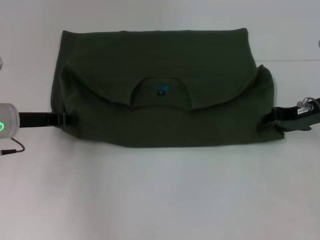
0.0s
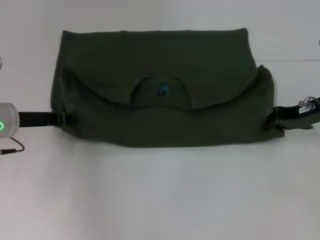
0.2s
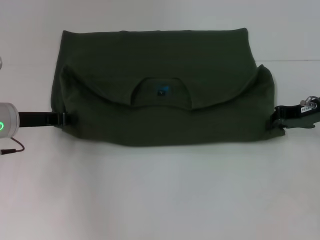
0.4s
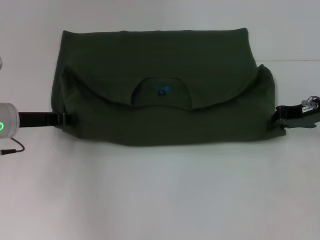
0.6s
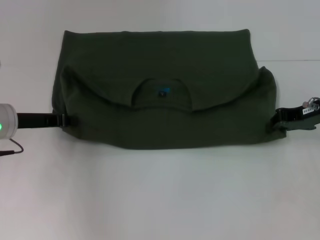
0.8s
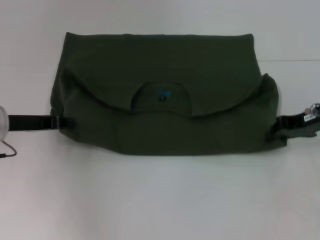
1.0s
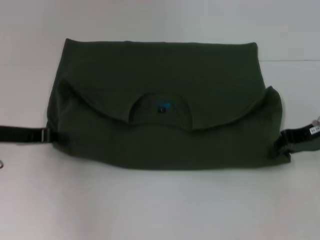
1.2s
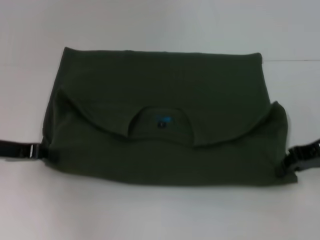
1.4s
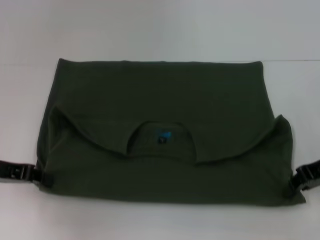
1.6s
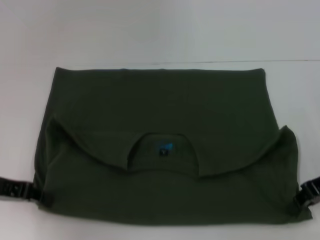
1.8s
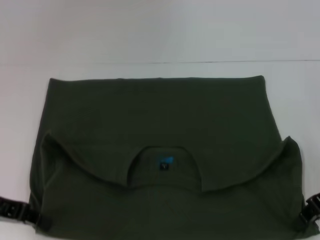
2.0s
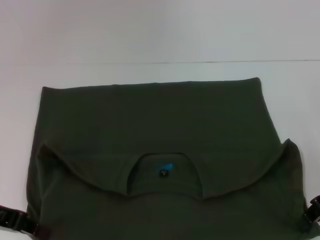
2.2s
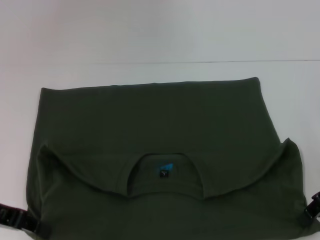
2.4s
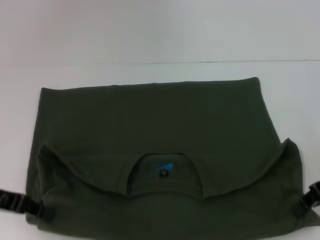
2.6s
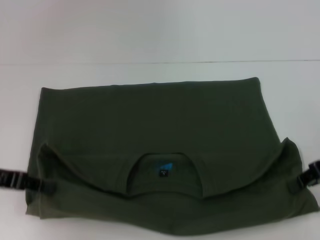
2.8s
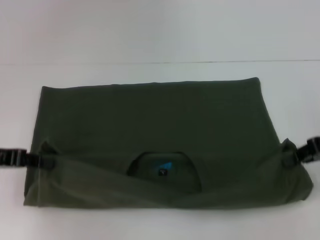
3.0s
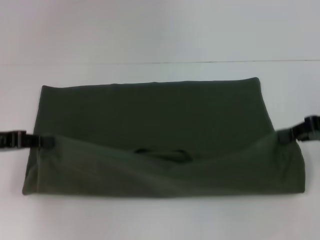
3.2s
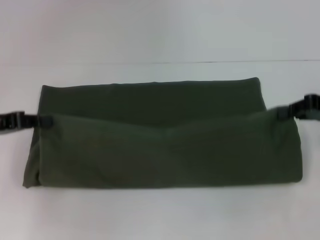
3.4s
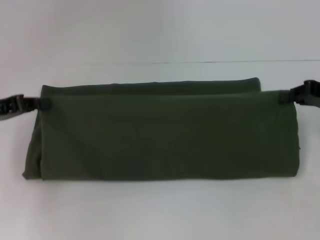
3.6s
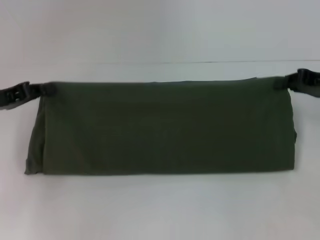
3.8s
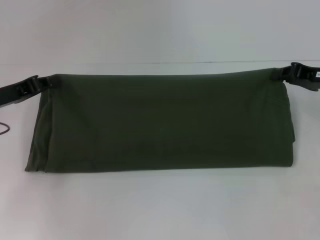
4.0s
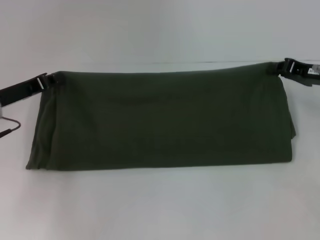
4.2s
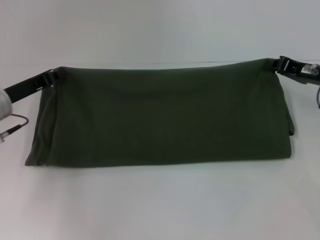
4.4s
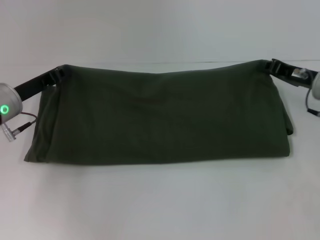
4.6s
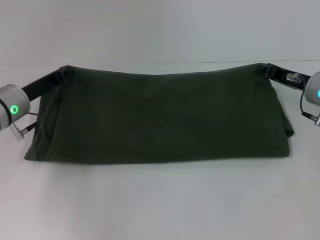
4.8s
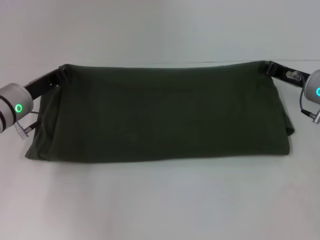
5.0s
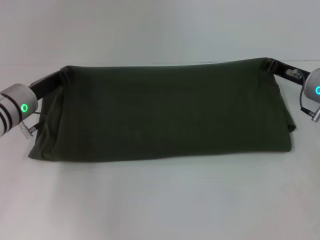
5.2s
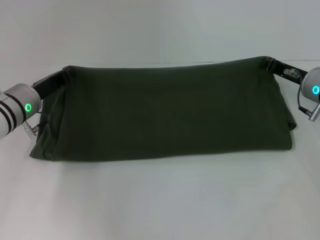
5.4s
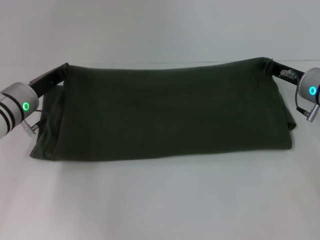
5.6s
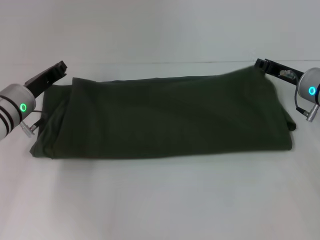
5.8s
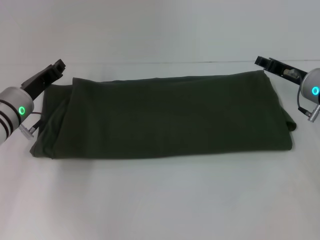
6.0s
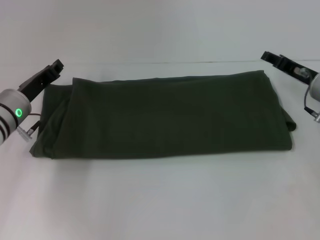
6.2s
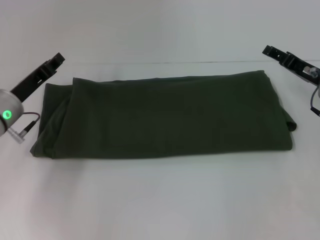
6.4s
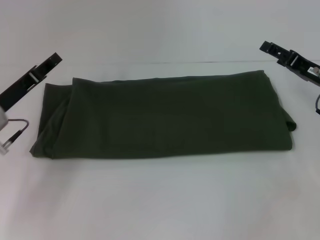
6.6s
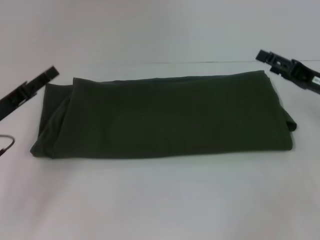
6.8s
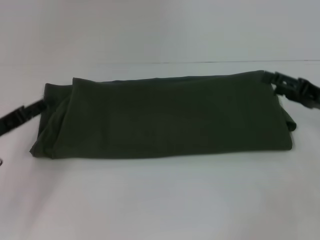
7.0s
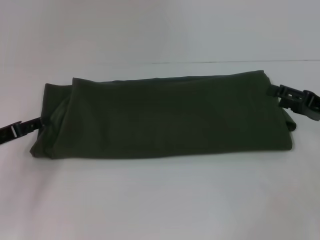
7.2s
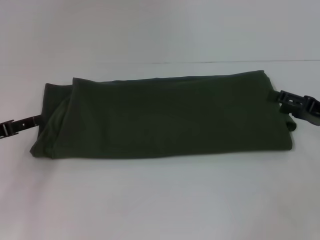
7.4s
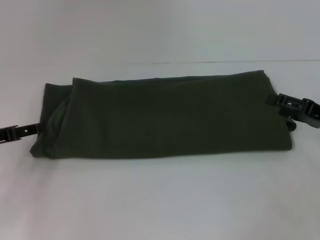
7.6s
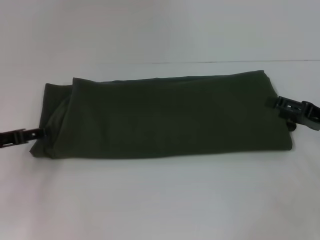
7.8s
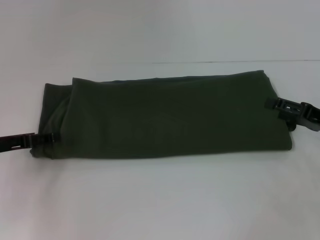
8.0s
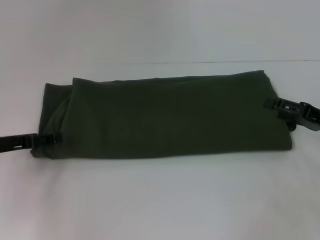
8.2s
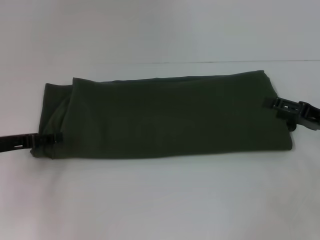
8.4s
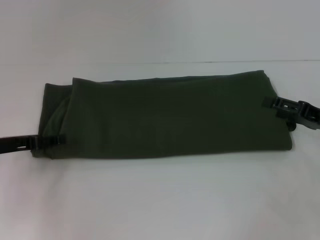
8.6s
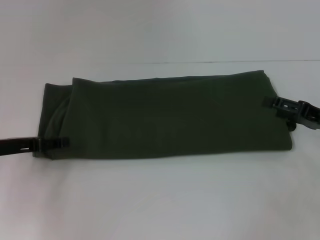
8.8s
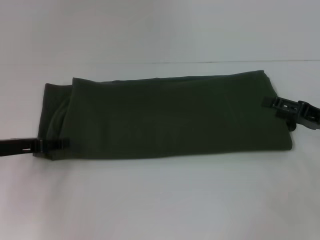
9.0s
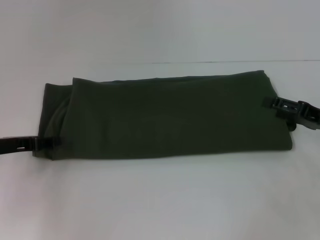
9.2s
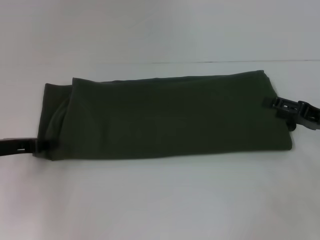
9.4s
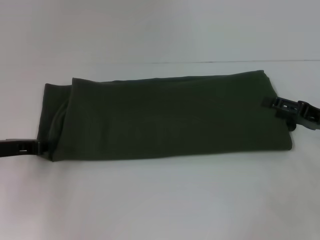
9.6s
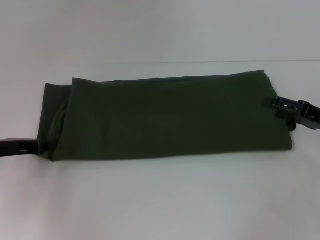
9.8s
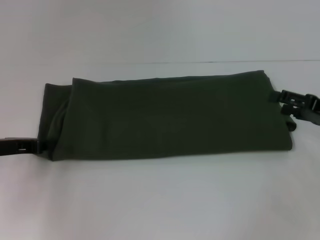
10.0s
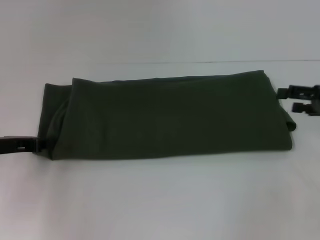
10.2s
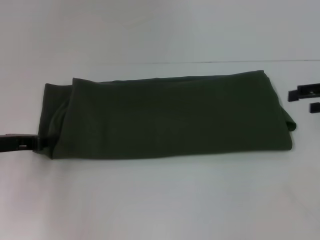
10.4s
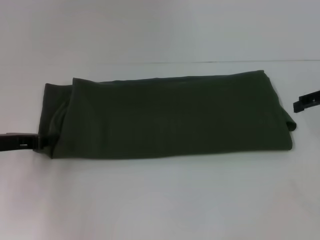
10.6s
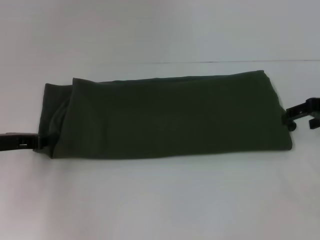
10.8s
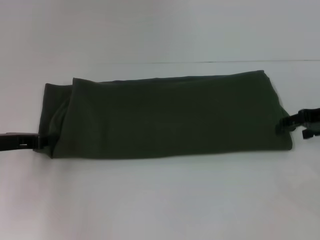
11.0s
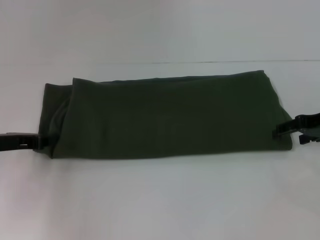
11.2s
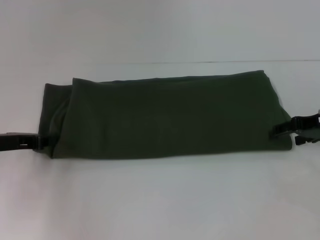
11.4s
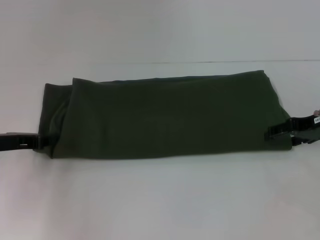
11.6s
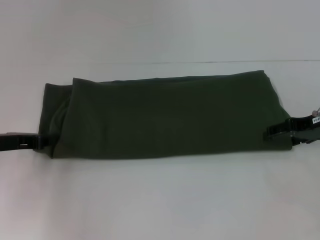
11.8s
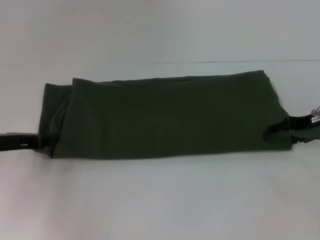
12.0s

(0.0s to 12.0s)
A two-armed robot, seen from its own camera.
Step, 0.0s - 2.0s: Pull the clothes with your left hand.
Step, 0.0s - 2.0s: Pull the clothes with your right hand.
Step, 2.2s - 5.8s: Fold the clothes with your right hand.
0.0s - 1.6s: The two grippers go approximately 5 cm backward. The right gripper closes.
1.6s - 3.0s: There are only small adjustments of the grippers.
3.0s - 4.4s: The two grippers go approximately 5 cm forward.
4.4s - 6.0s: The left gripper changes place by roughly 5 cm.
6.0s - 7.6s: The left gripper is displaced to the left and backward by approximately 10 cm, and opens its fingers; the right gripper moves backward and to the right, roughly 10 cm, and opens its fingers.
7.6s - 9.0s: The grippers move only a little.
9.0s - 10.4s: The right gripper heads upward, covering roughly 10 cm, while the left gripper closes its fingers.
10.4s - 12.0s: The right gripper heads to the left, covering roughly 5 cm.

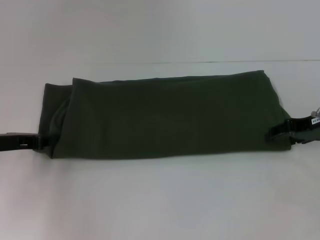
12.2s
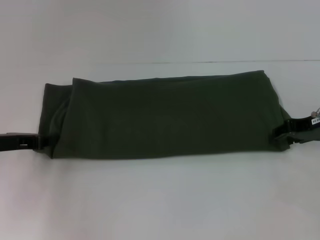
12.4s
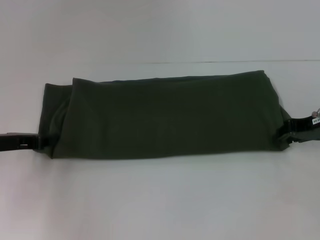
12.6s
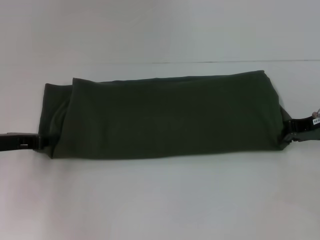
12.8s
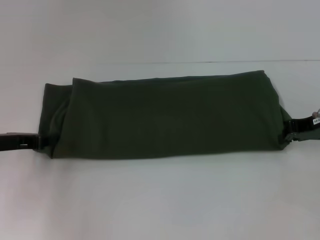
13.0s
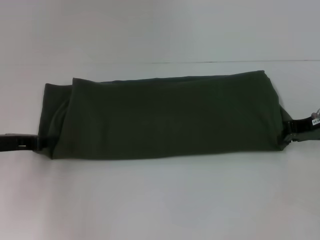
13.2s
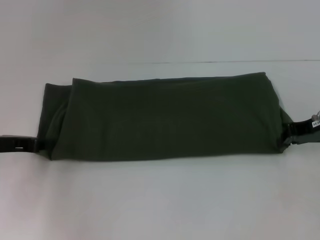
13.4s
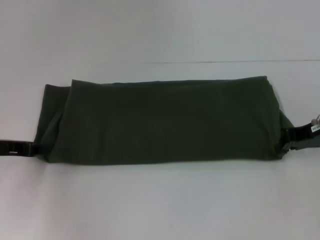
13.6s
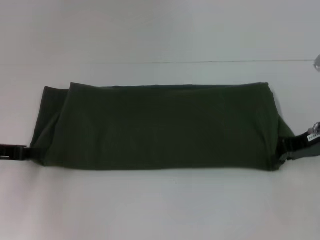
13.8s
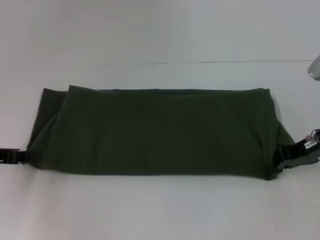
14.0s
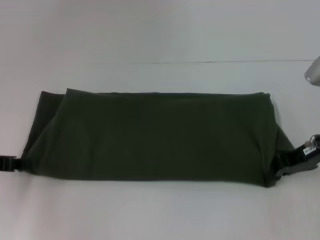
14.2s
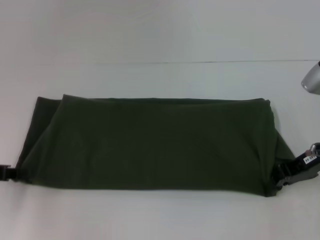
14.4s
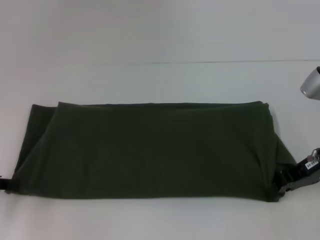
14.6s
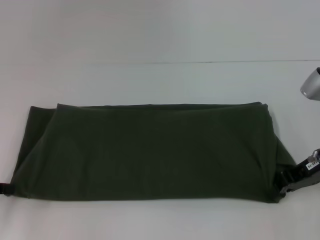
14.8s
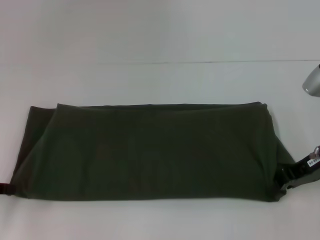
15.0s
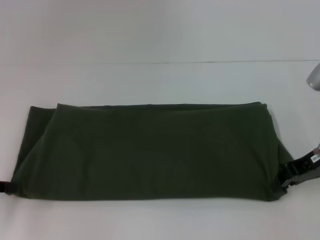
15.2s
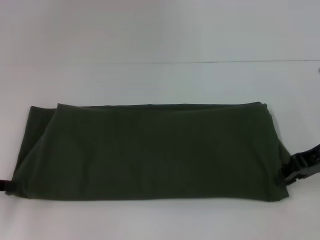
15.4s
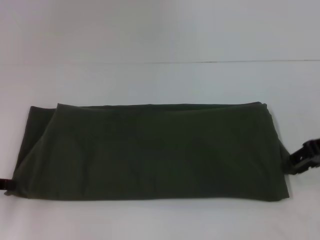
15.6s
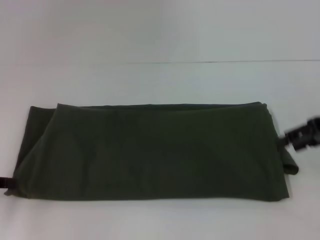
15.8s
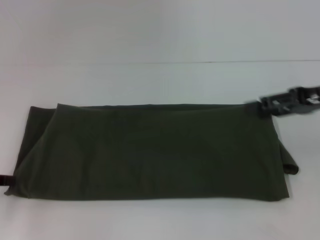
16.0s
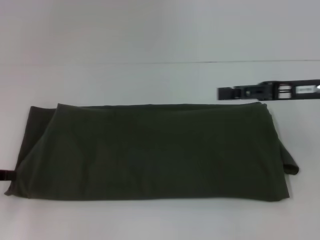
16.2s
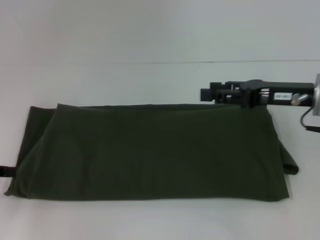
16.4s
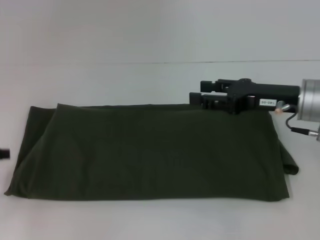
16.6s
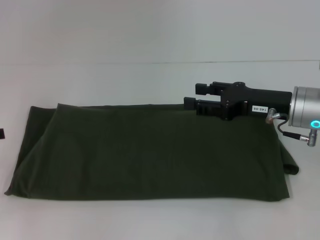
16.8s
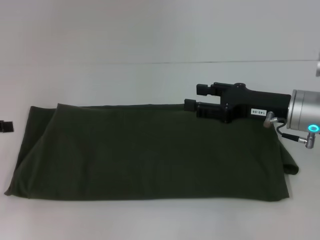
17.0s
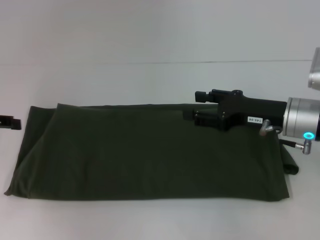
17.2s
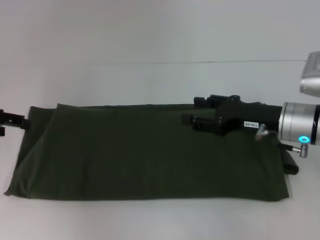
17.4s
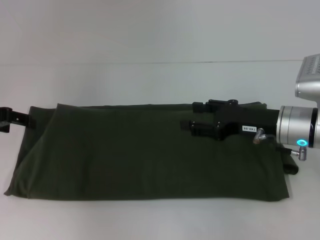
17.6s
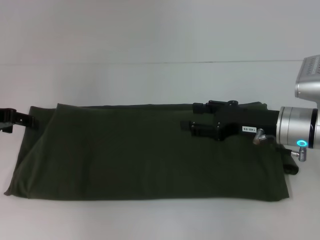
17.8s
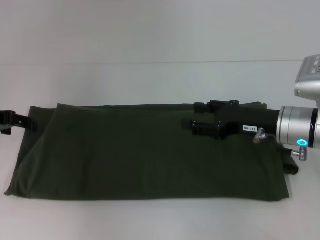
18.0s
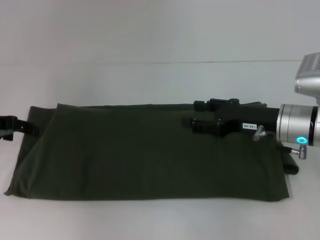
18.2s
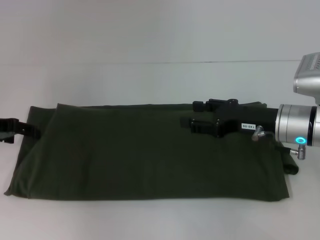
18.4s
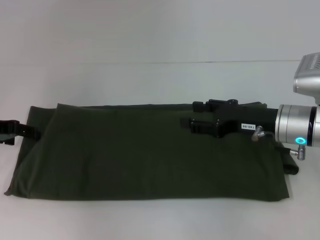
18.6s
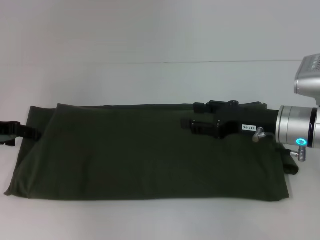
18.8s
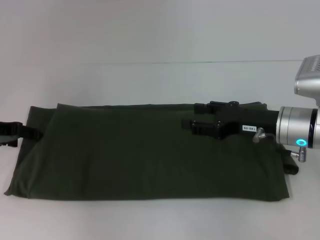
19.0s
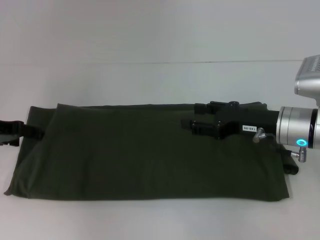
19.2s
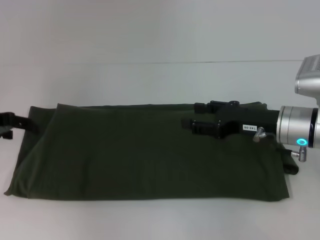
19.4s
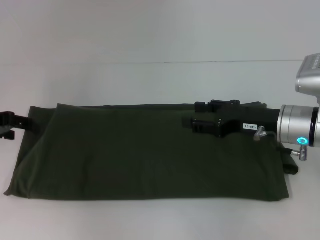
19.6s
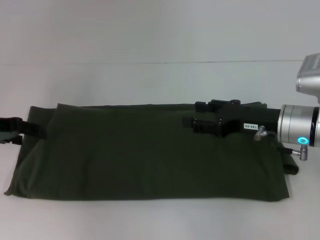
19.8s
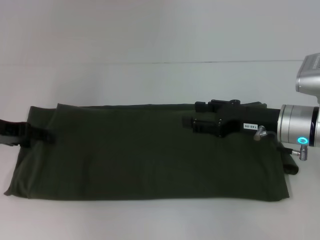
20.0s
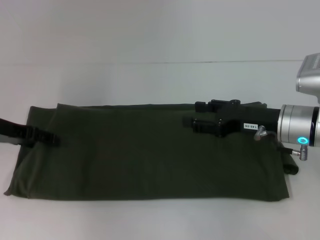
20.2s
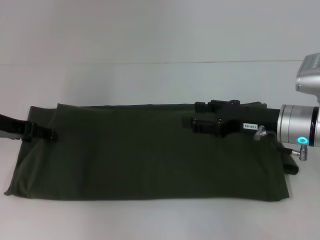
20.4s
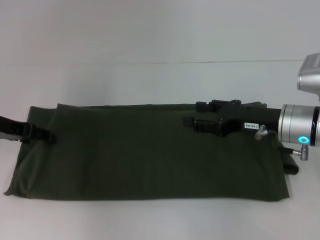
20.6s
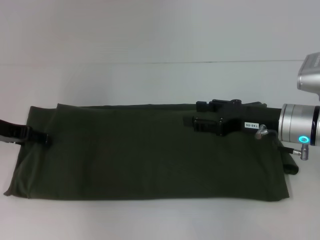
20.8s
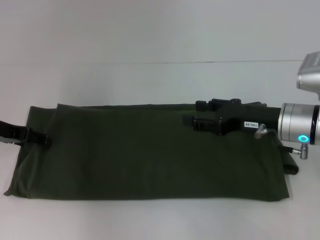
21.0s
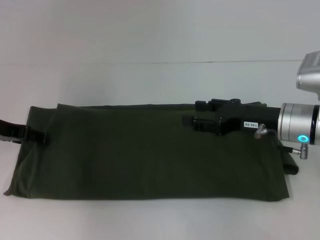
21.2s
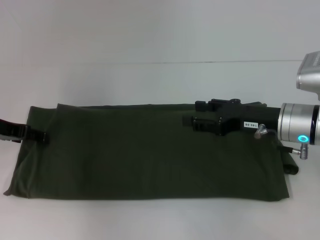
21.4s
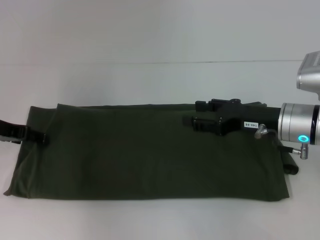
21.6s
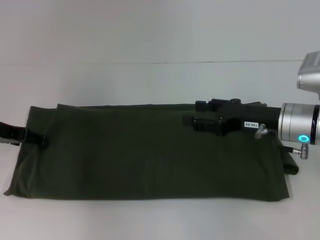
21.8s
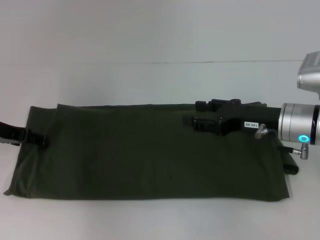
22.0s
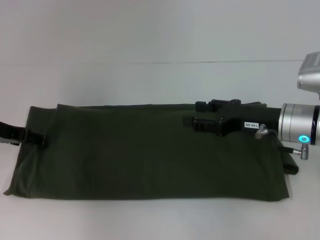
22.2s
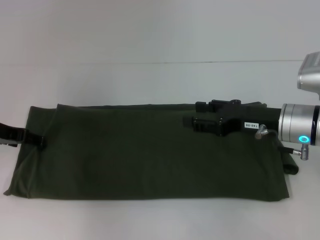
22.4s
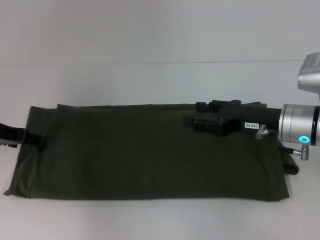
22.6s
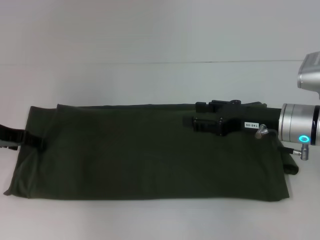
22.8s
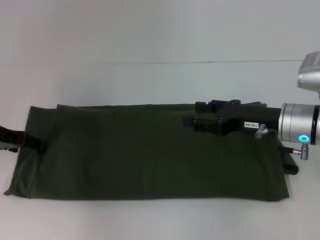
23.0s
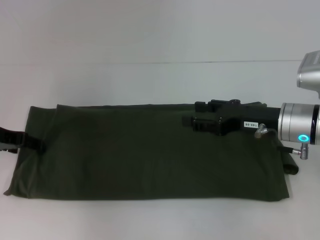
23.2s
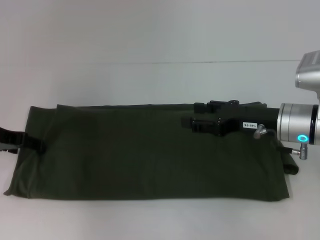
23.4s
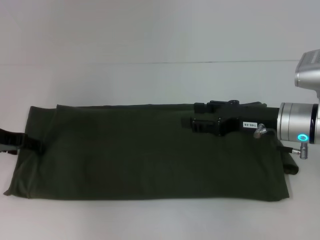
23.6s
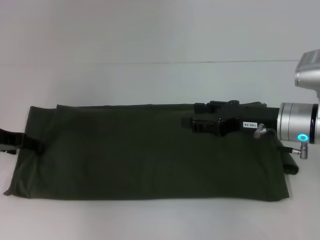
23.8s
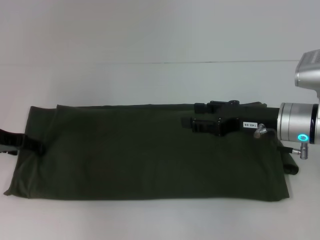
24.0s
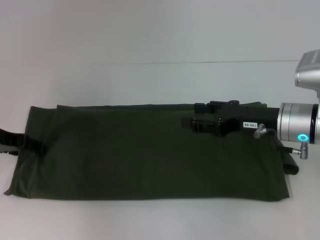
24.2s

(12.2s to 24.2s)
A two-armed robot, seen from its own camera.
12.2s - 13.8s: The right gripper closes up.
13.8s - 15.2s: The left gripper shifts by roughly 5 cm.
15.2s - 16.6s: The right gripper opens its fingers.
16.6s - 18.2s: The left gripper is displaced forward by about 10 cm, and opens.
18.2s - 21.2s: There are only small adjustments of the grippers.
21.2s - 22.6s: Both grippers stay about where they are.
22.6s - 24.2s: Both grippers stay about where they are.
